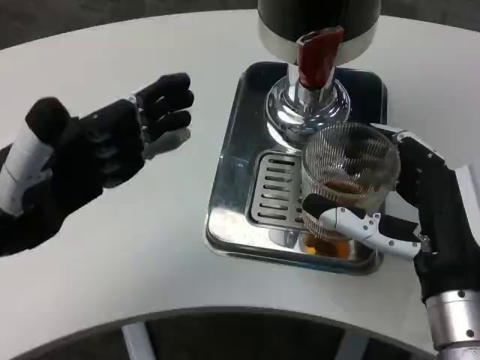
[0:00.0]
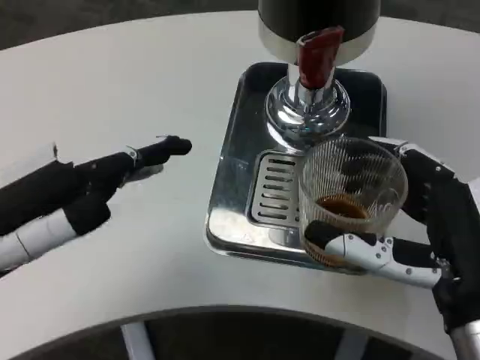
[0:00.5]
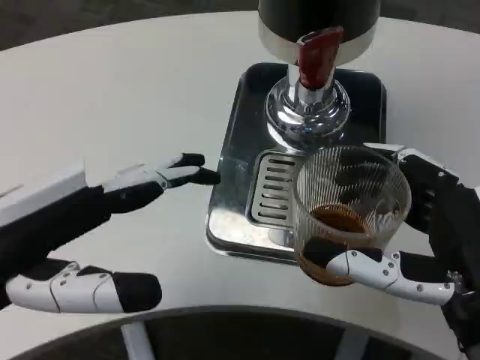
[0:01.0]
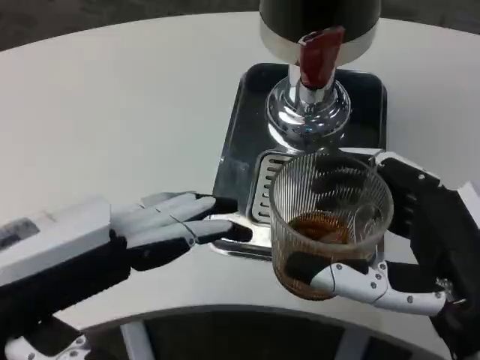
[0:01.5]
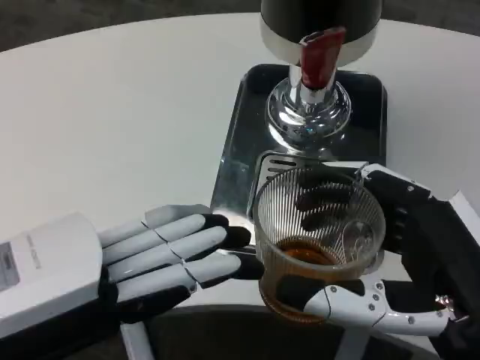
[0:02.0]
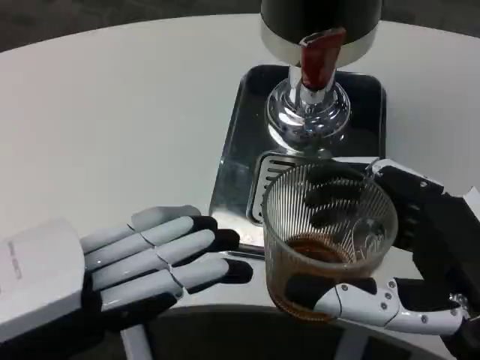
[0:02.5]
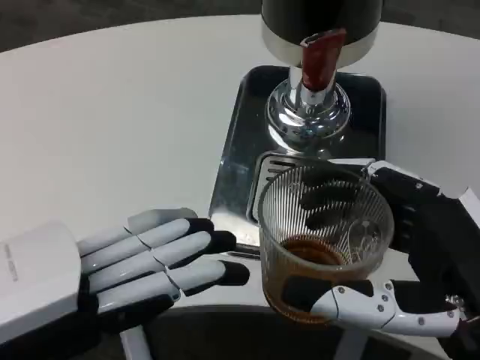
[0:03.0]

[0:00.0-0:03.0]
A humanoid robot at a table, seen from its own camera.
Task of the whole recording: Grasp the cup under the faucet to collect the drink, then remove the cup.
0:00.0 to 0:01.5: Both hands travel together backward, about 10 cm.

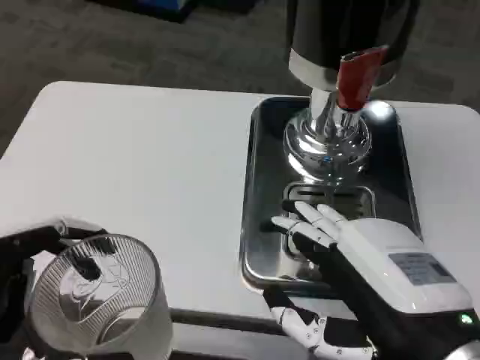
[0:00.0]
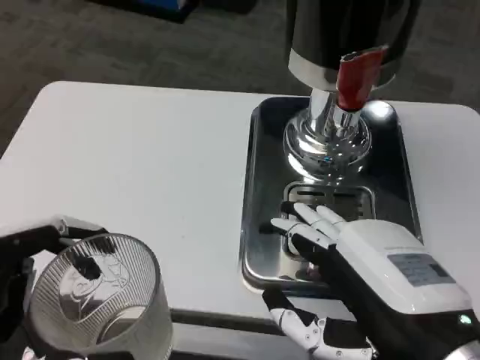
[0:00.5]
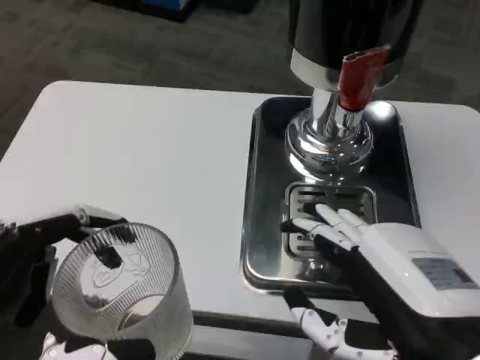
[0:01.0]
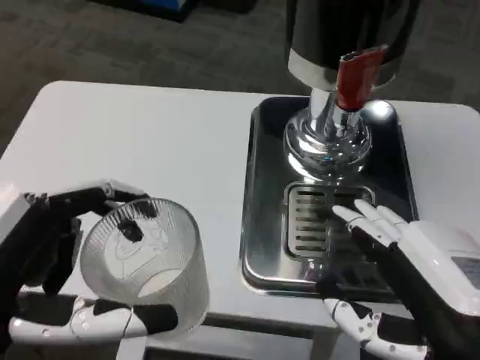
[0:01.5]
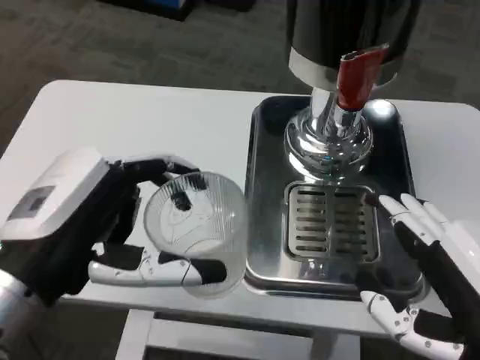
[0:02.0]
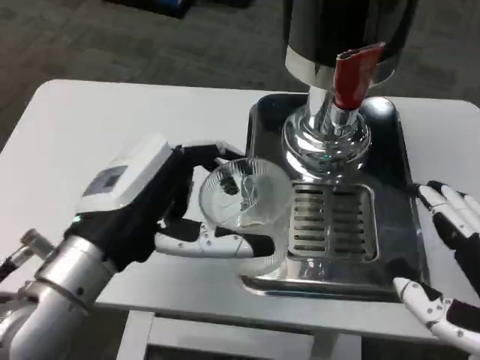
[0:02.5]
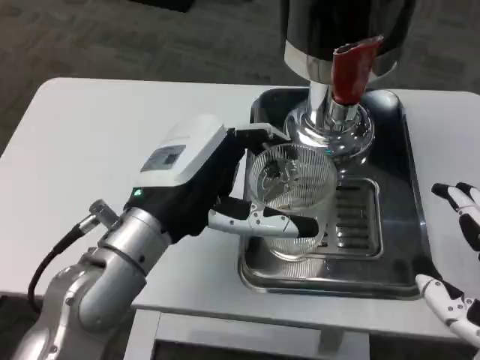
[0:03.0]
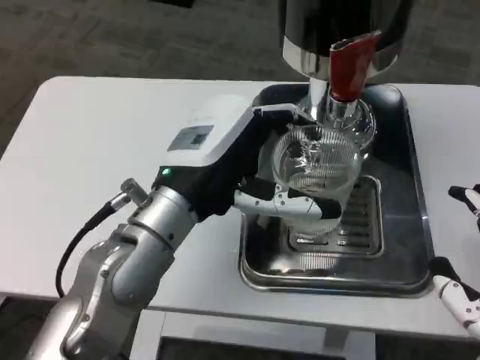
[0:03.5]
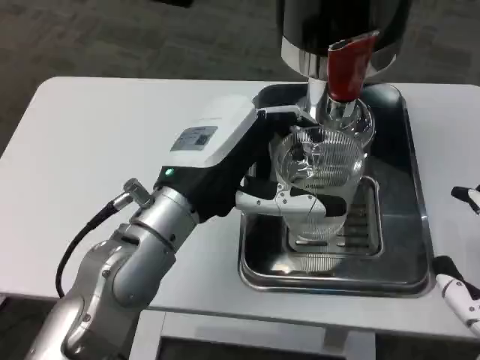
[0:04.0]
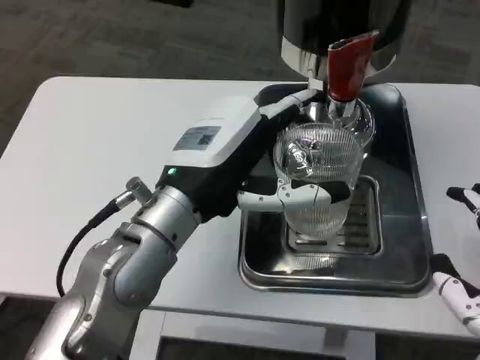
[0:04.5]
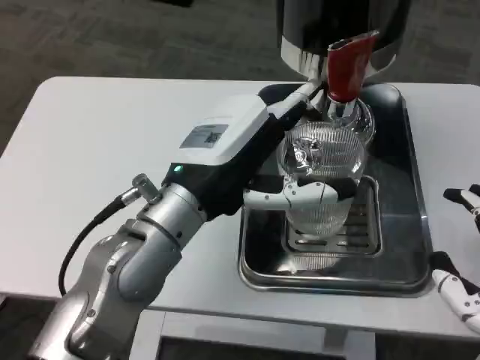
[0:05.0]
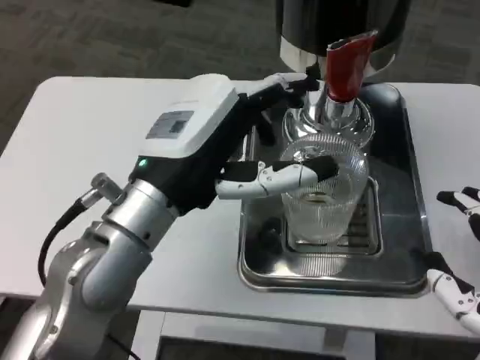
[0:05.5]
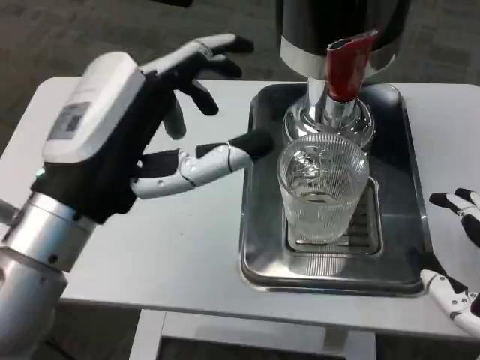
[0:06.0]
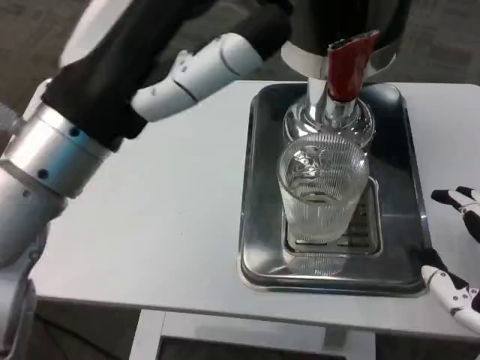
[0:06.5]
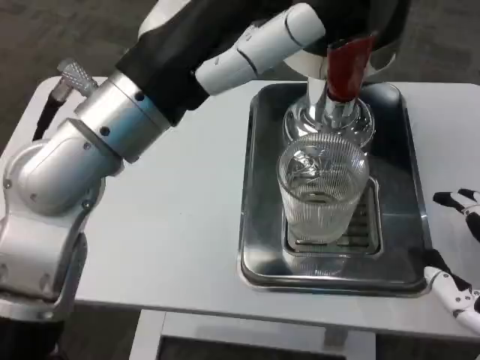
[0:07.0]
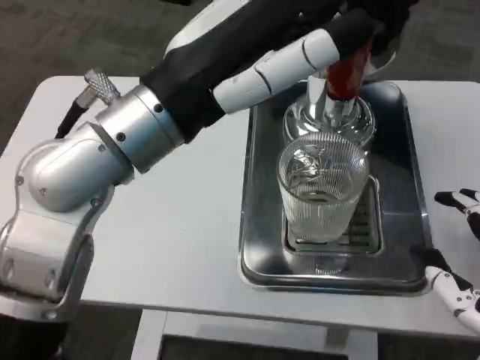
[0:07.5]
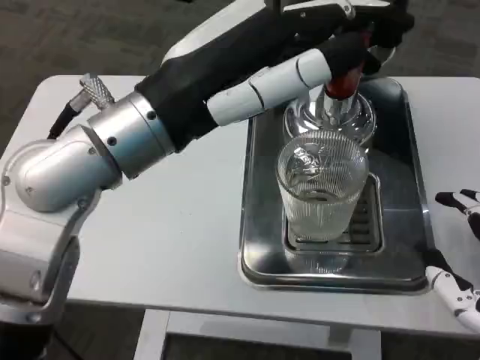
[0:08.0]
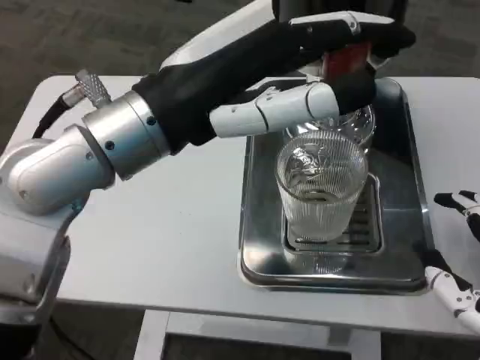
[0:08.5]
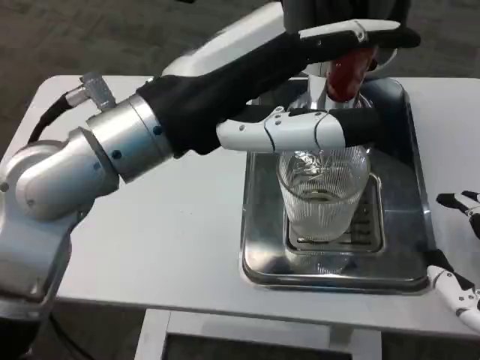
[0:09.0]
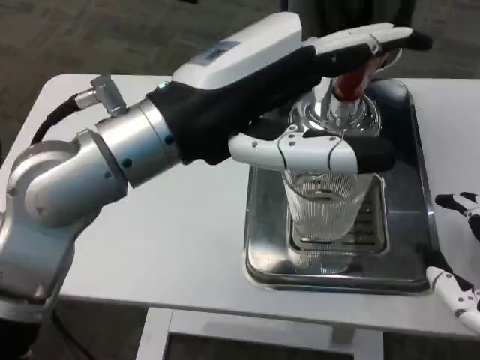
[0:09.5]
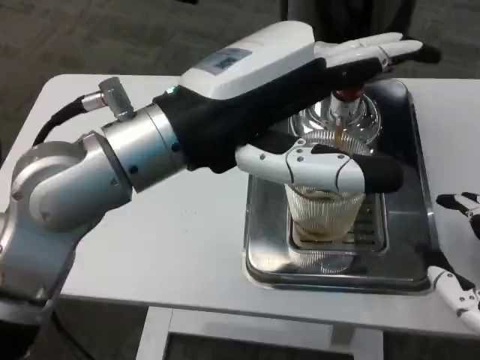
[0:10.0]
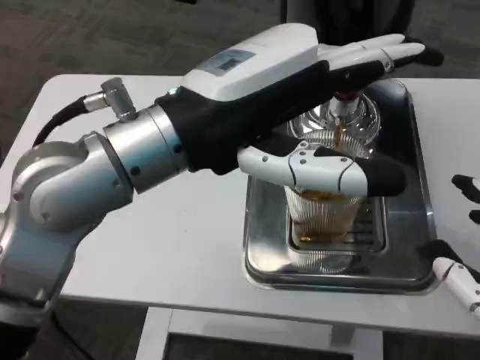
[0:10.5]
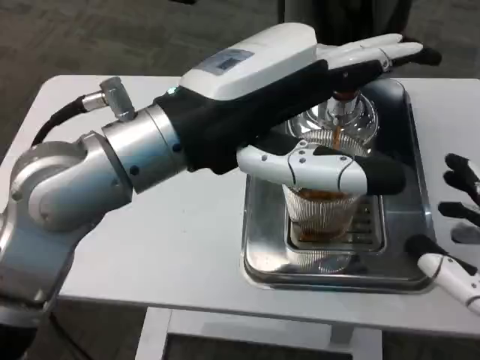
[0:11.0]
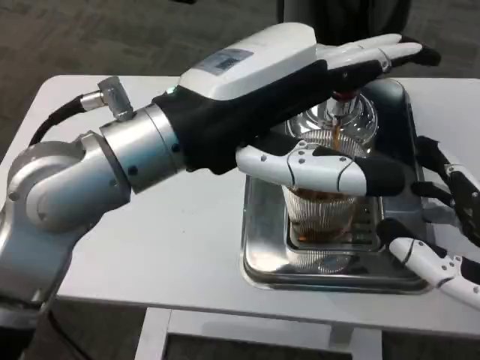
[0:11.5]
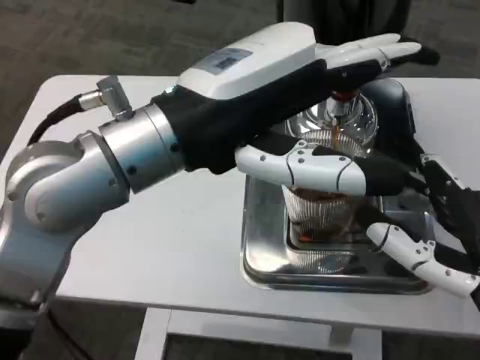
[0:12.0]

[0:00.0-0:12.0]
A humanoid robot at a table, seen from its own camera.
Task of the whole recording: Grasp the cup under the faucet to collect the drink, then remove the cup.
0:00.0 to 0:02.0: The left hand is displaced forward by some 10 cm.
0:02.0 to 0:04.0: The left hand travels forward and to the right by some 15 cm.
0:04.0 to 0:06.0: The left hand moves backward and to the left, roughly 10 cm.
0:06.0 to 0:08.0: The left hand travels upward by roughly 5 cm.

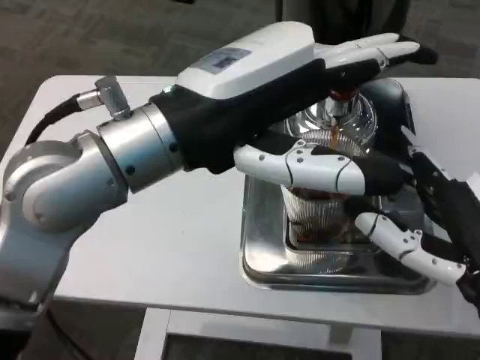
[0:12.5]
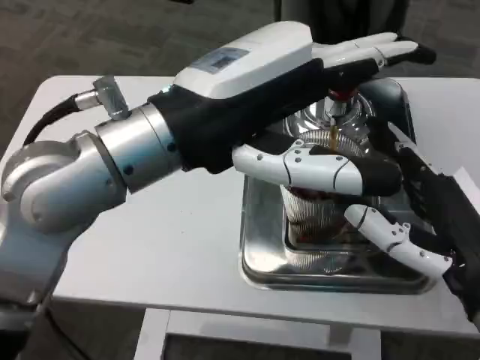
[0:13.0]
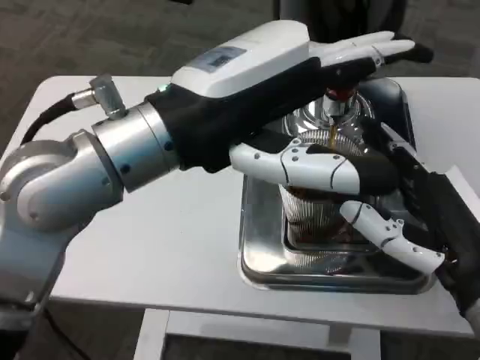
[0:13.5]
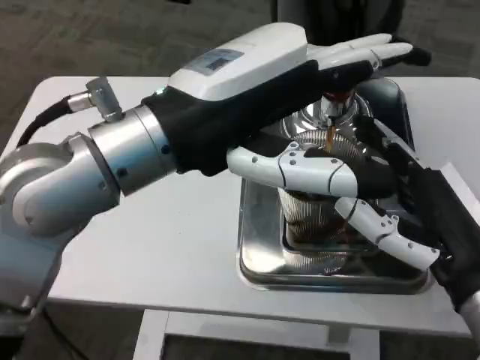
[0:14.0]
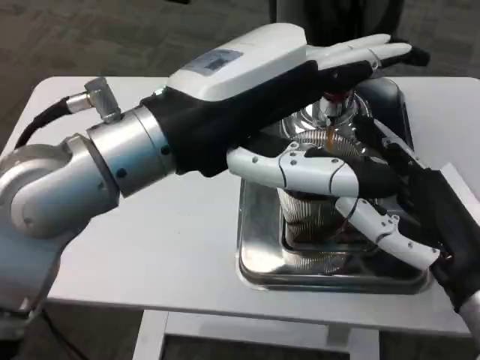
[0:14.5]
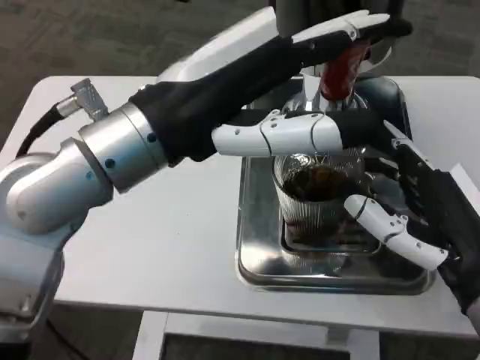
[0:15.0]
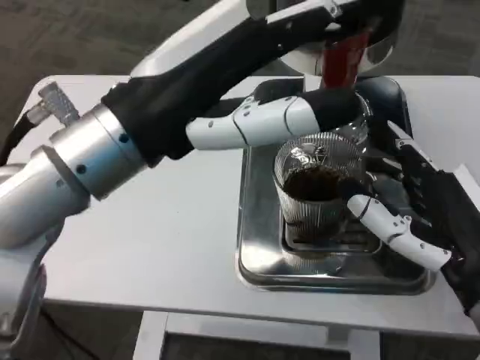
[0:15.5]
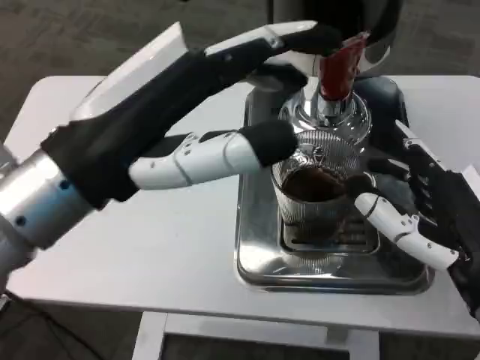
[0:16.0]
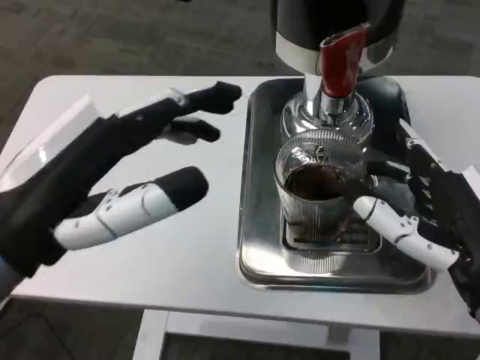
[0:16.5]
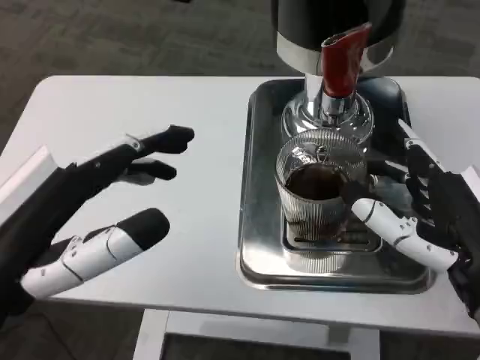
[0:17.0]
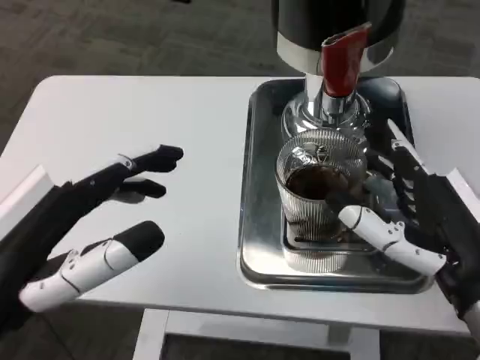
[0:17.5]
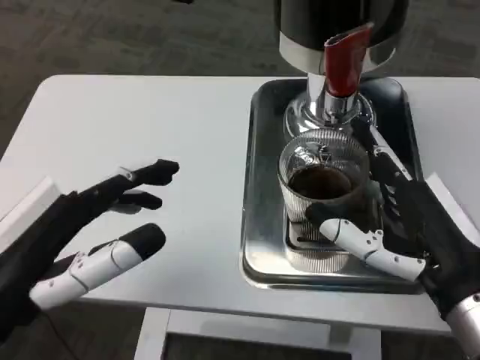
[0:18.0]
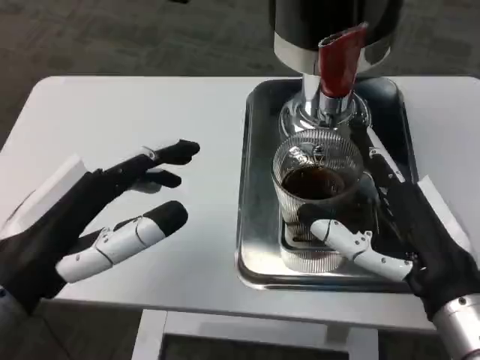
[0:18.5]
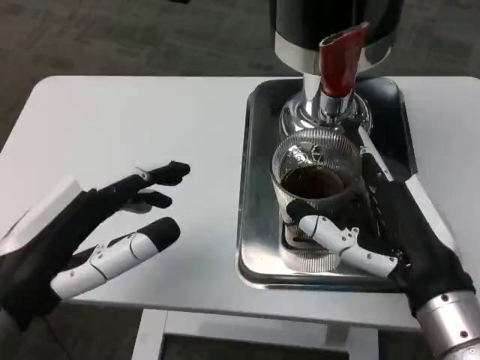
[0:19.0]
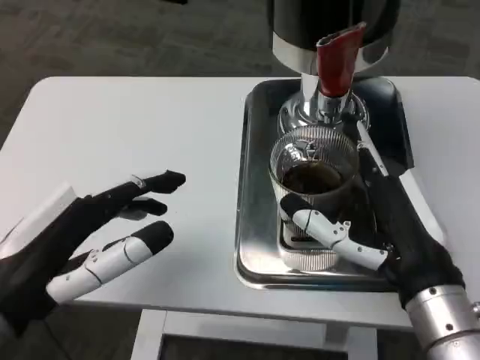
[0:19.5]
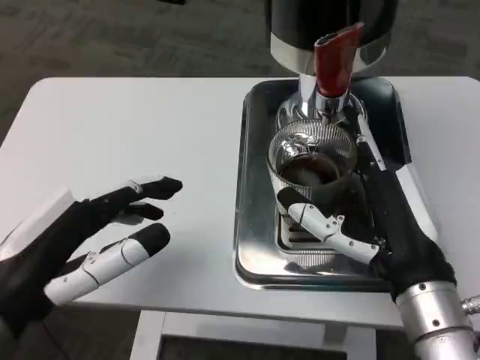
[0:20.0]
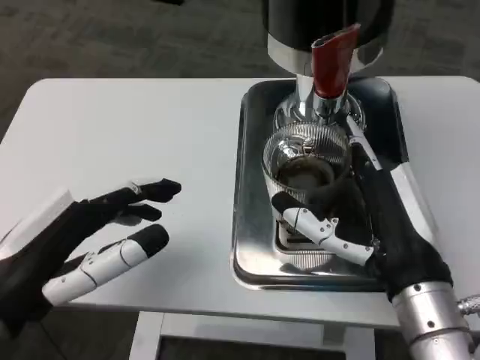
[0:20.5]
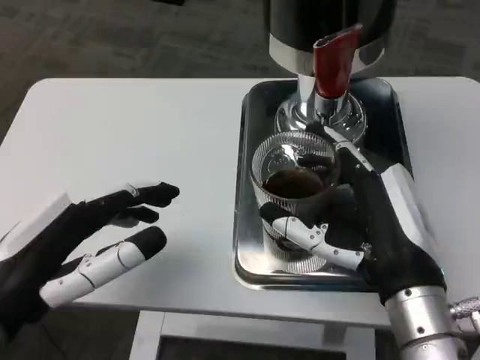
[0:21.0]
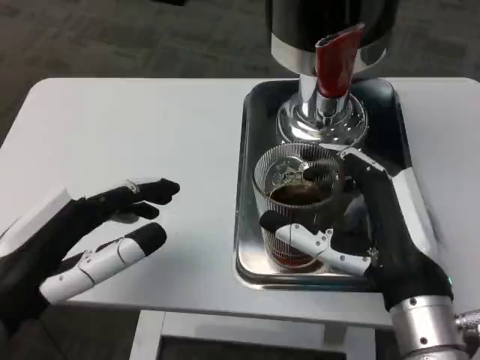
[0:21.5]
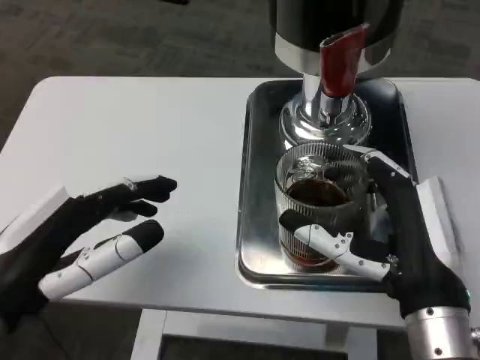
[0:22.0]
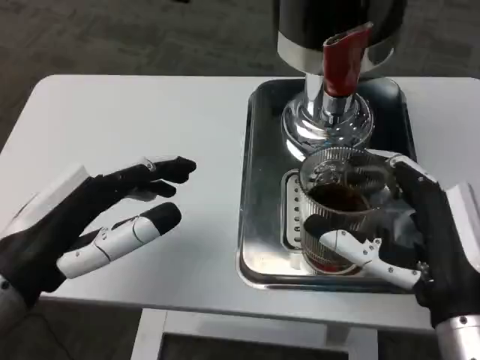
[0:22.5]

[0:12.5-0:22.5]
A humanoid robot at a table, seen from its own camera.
Task of the whole recording: Grasp the cup under the faucet to collect the drink, then remove the cup.
0:14.5 to 0:16.5: The left hand heads to the left, downward and backward, covering about 15 cm.

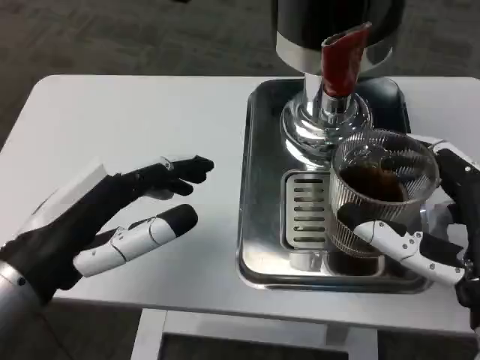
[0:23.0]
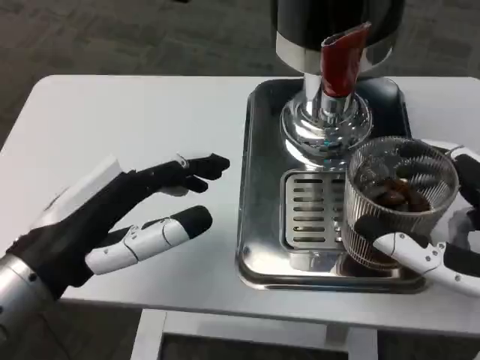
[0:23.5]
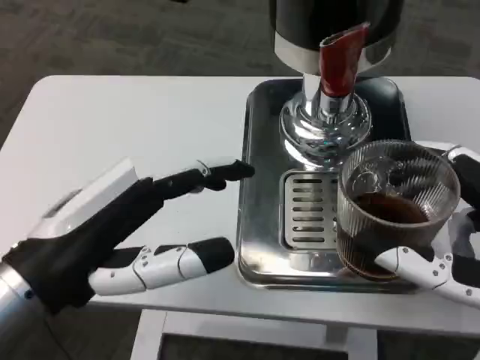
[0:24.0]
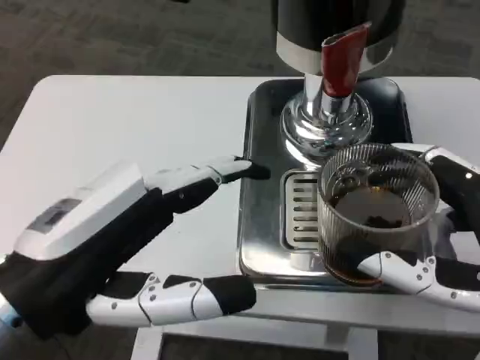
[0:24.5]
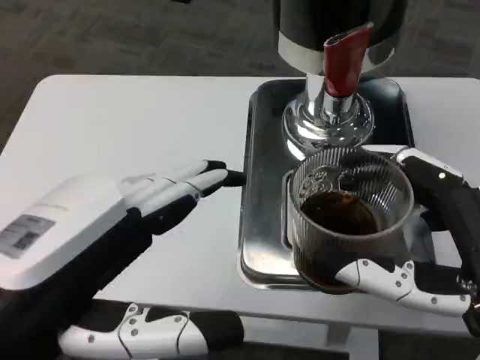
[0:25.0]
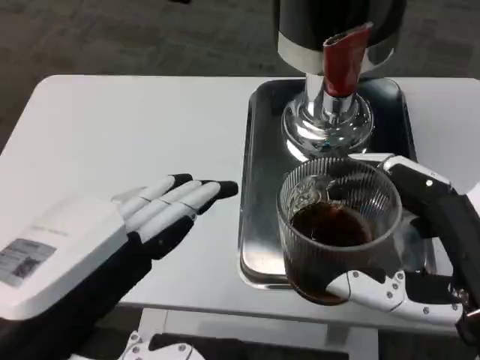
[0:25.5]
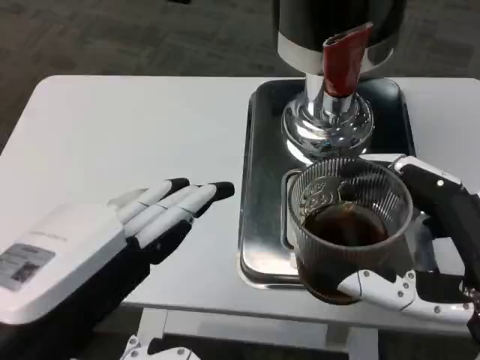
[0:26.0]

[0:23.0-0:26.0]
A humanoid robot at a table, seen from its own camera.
Task of the whole recording: Grasp the cup under the faucet to collect the drink, then remove the cup.
0:23.0 to 0:24.5: The left hand heads backward, covering roughly 5 cm.
